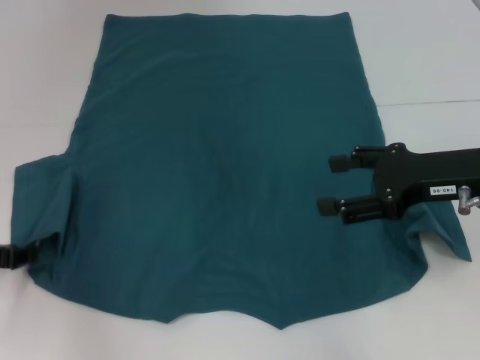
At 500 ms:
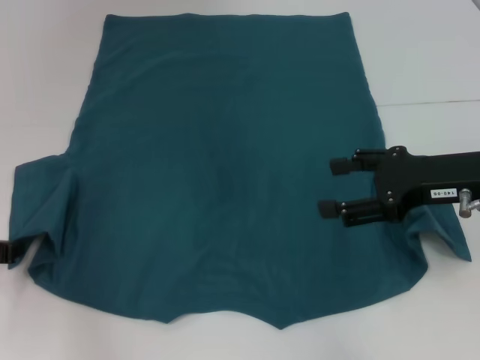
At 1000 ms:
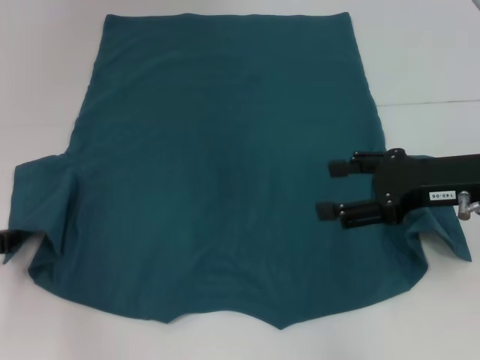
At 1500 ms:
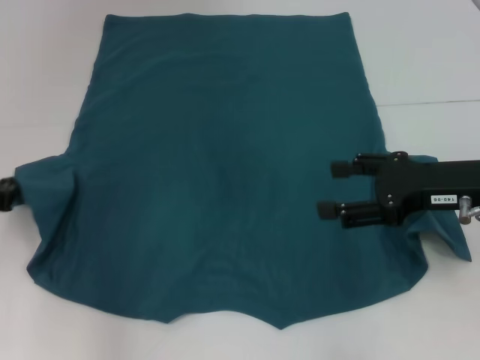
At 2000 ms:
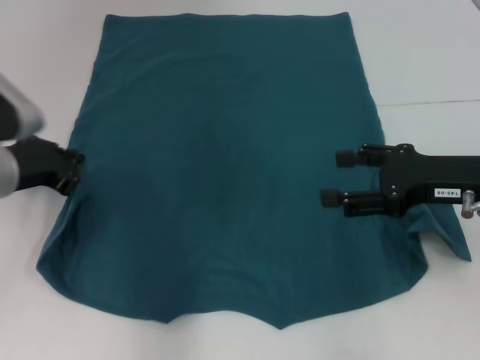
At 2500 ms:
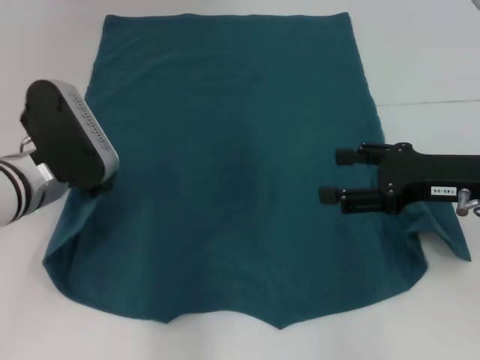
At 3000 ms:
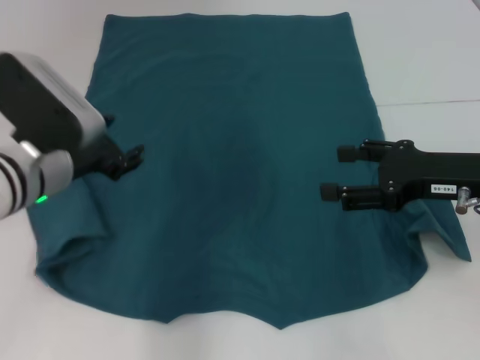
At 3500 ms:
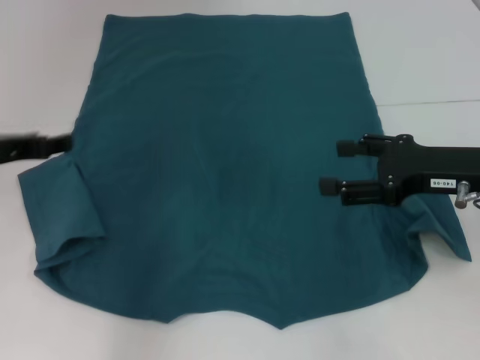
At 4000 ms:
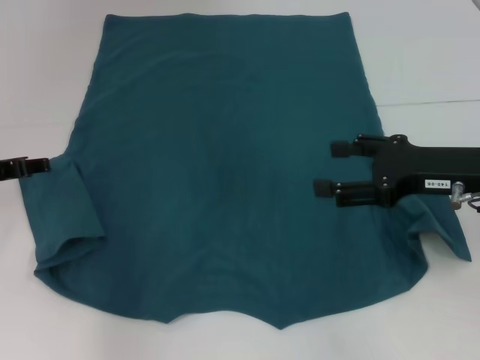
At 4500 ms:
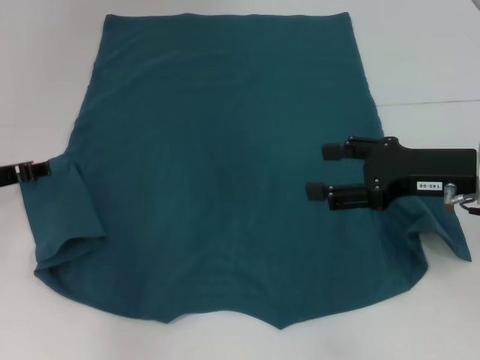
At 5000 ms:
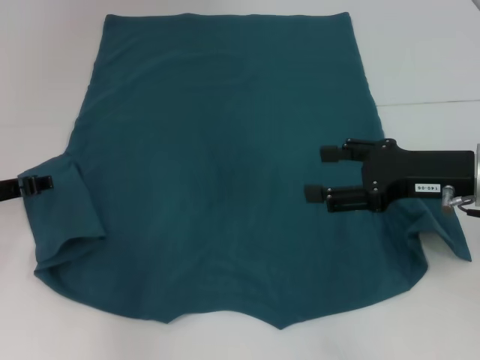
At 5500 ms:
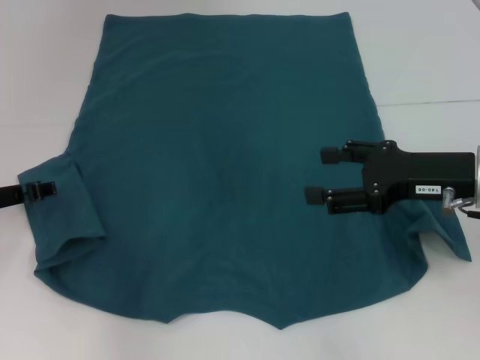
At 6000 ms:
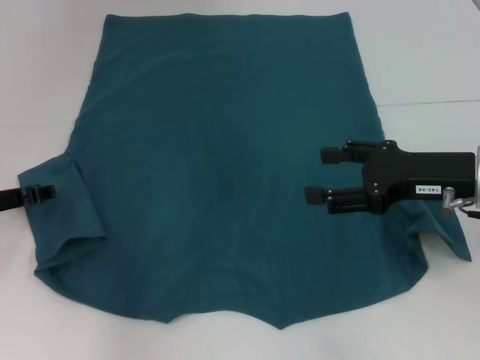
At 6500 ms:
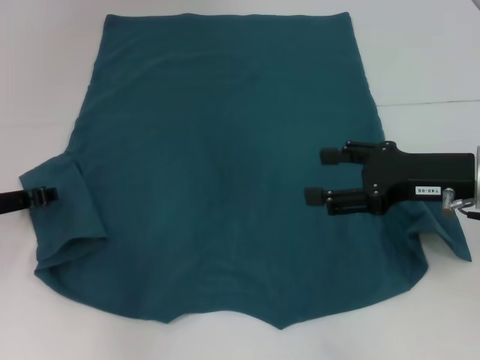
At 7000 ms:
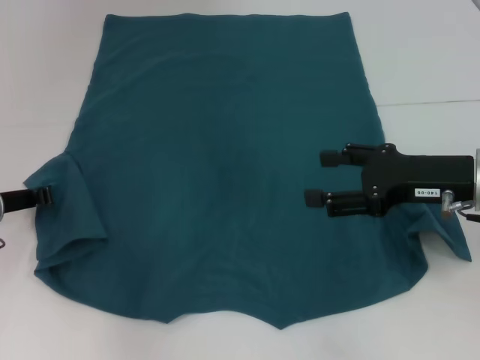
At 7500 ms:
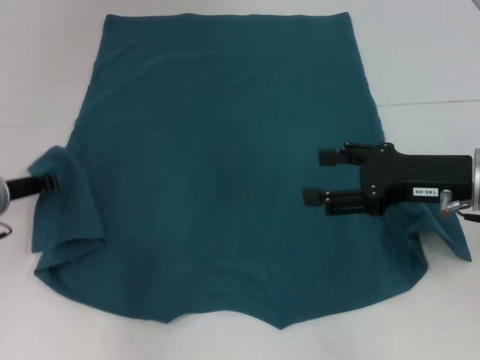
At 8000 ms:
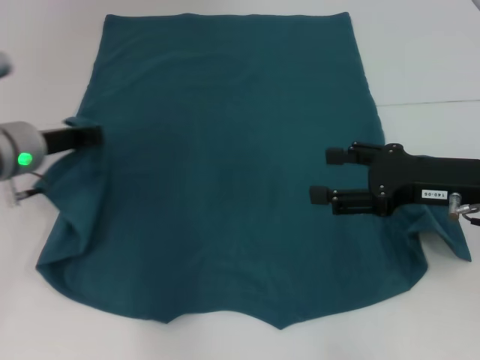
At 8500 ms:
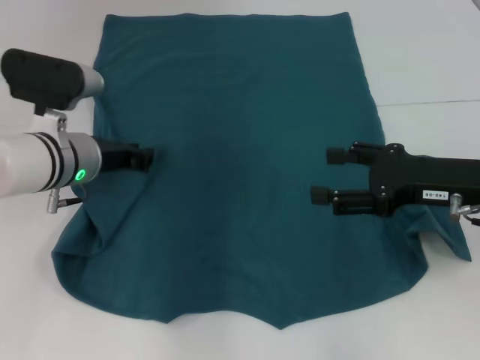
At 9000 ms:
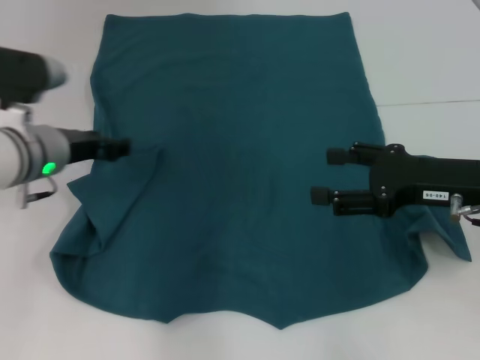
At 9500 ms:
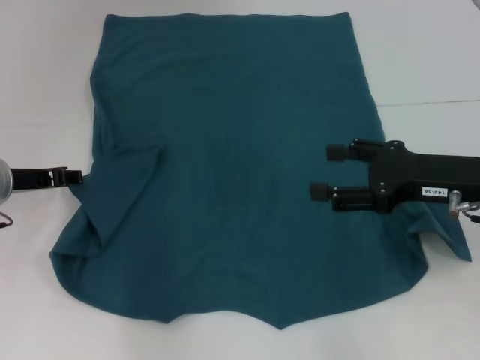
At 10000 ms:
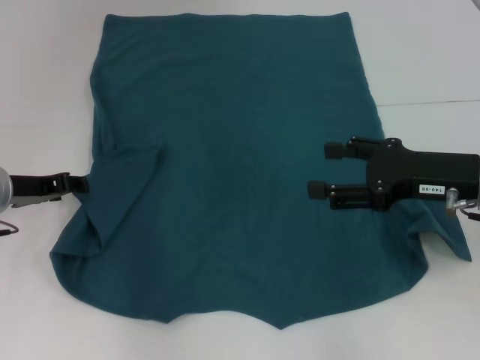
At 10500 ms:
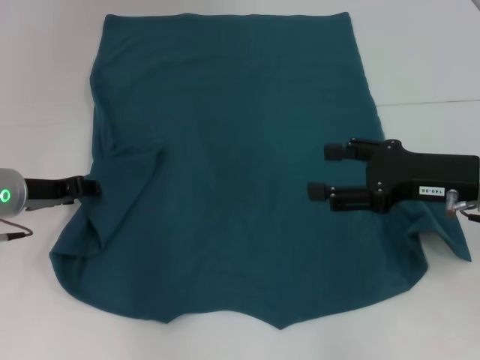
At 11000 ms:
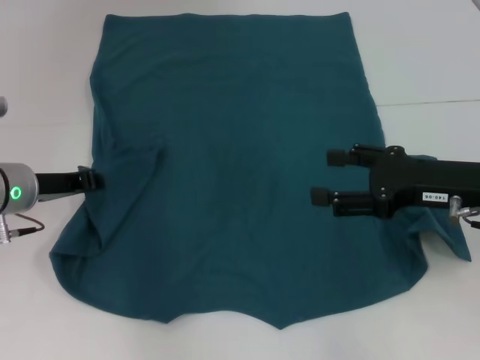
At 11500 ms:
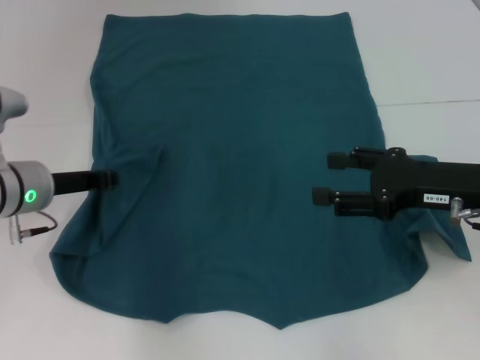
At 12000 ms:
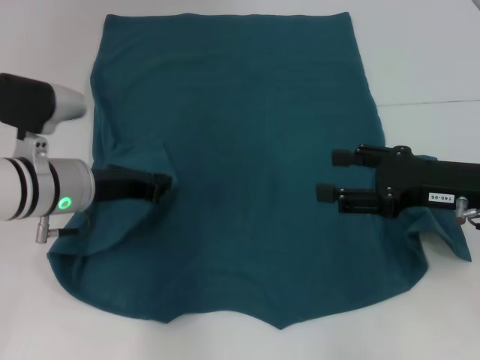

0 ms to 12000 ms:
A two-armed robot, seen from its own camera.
Step, 0 ms to 12000 ms: Fold the bottom left sleeve with your left hand.
0 ms to 2000 ms: The left gripper travels to the right and upward by roughly 10 cm, and closes up.
2000 ms to 4000 ms: The left gripper travels to the left by about 5 cm, and opens.
4000 ms to 6000 ms: The grippers make only small movements.
6000 ms to 8000 ms: The left gripper moves to the right and upward, approximately 10 cm, and closes up.
8000 ms to 10000 ms: The left gripper opens.
10000 ms to 12000 ms: The left gripper shifts some 10 cm to the right, and closes up.

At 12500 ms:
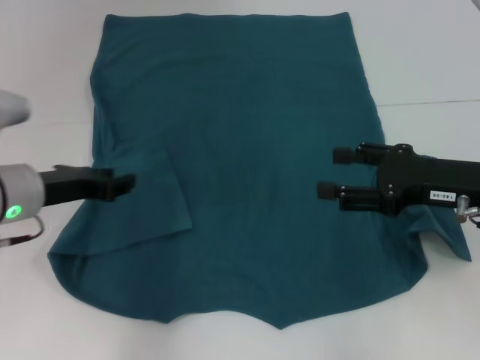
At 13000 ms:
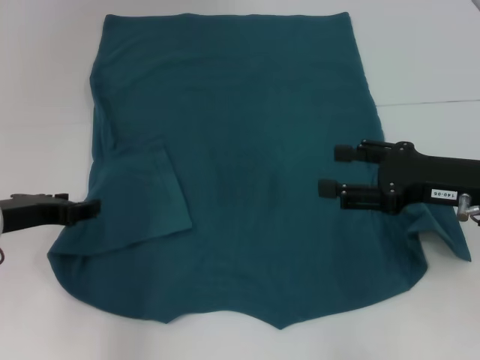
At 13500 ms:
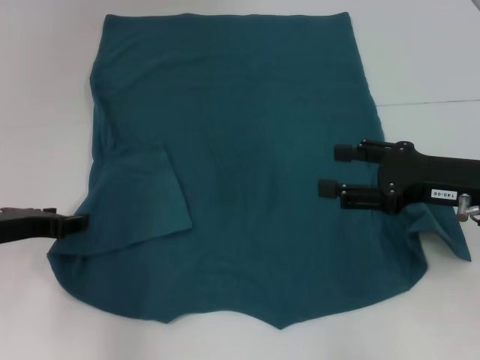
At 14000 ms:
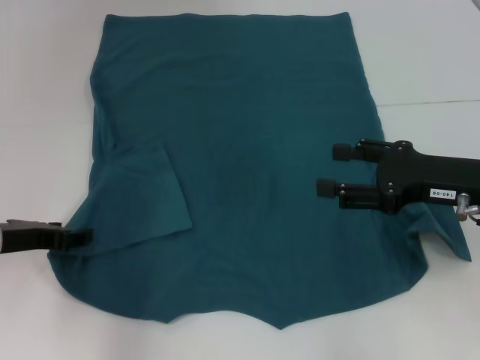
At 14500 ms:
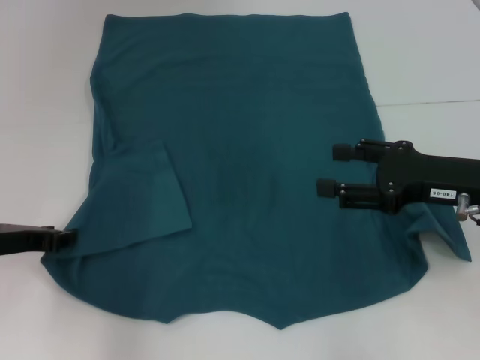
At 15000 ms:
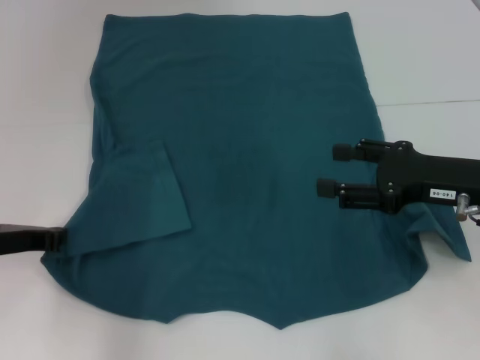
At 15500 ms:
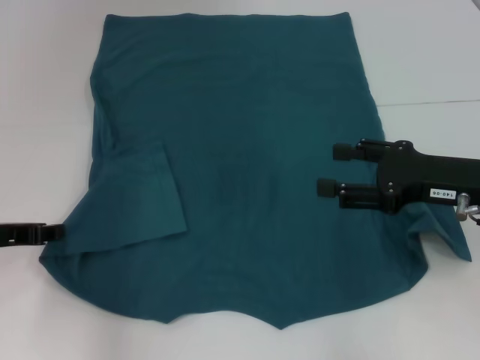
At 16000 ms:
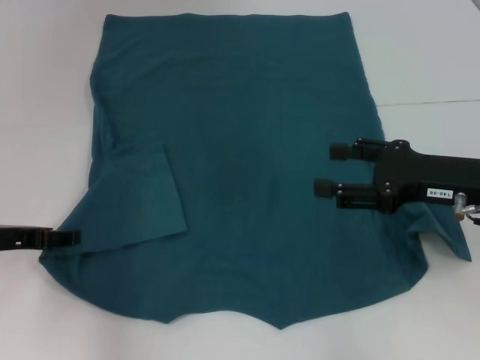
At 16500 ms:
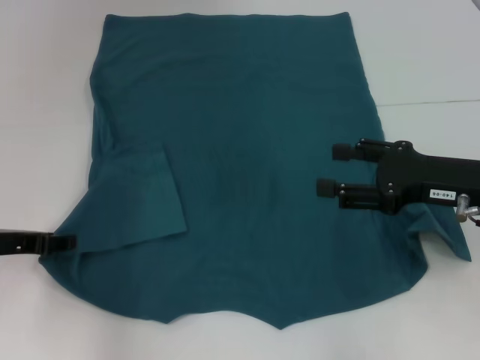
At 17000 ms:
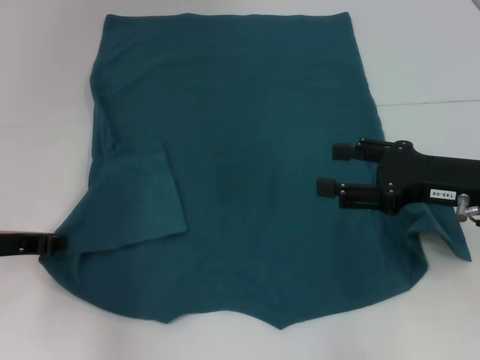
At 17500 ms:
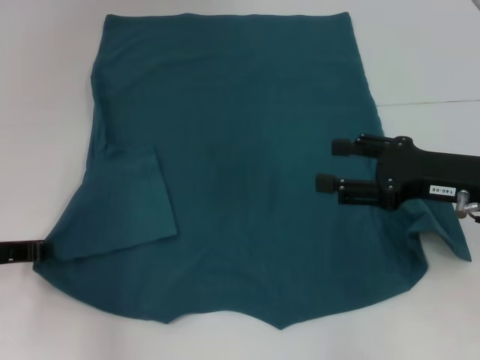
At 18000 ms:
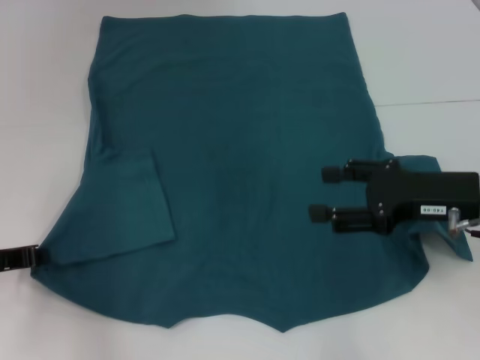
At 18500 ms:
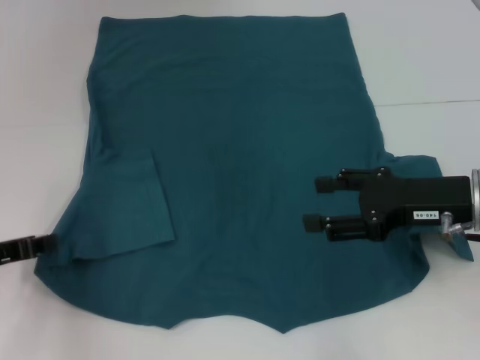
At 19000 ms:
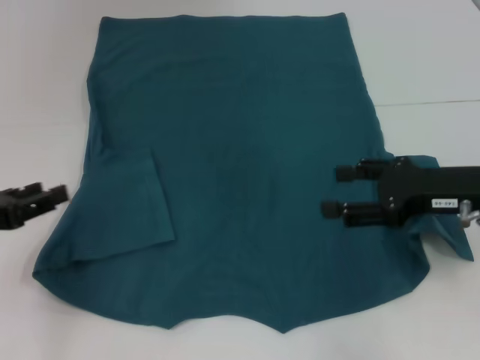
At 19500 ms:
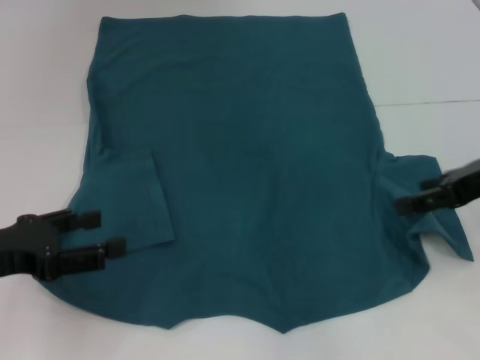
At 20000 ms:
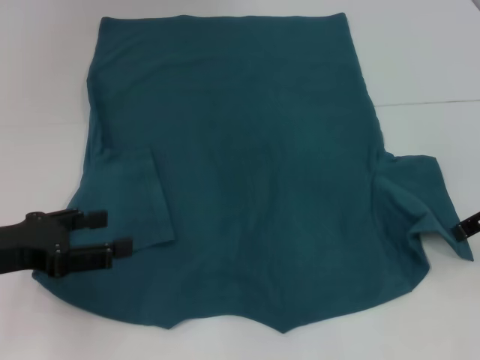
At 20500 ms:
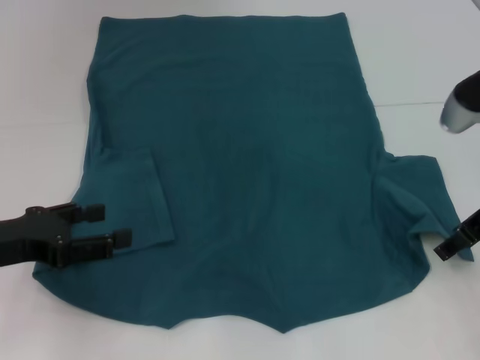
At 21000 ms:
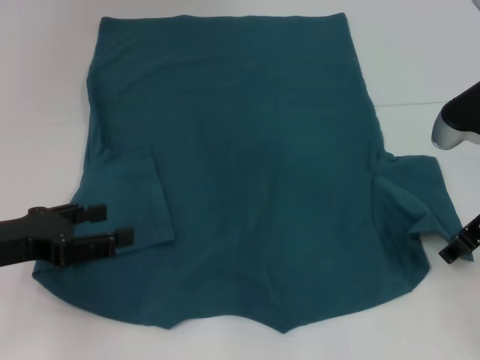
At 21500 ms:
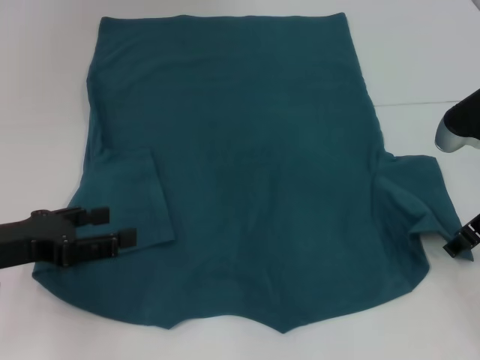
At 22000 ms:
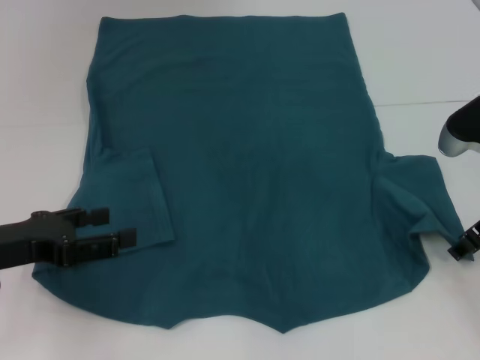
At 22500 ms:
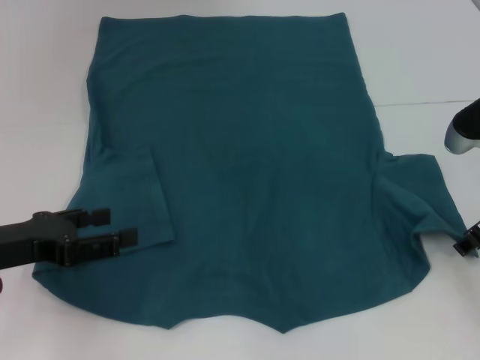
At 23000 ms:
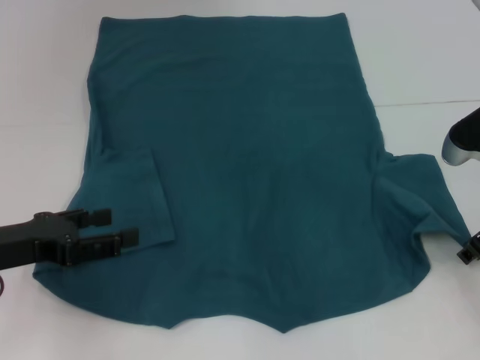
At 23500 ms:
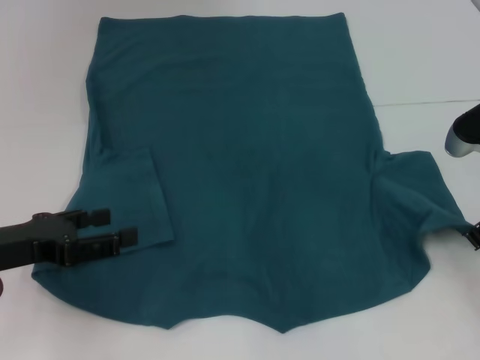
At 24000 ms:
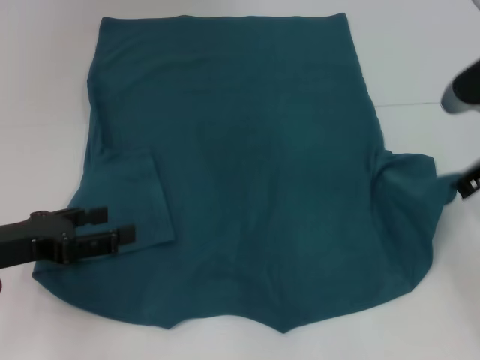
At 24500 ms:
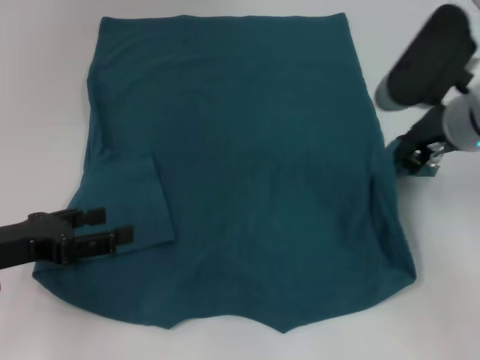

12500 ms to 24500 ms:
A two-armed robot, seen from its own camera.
12500 ms to 14500 ms: The left gripper shifts by roughly 5 cm.
14500 ms to 16500 ms: The left gripper closes and opens again.
16500 ms to 18500 ms: The left gripper closes.
18500 ms to 20500 ms: The left gripper shifts by about 5 cm, and opens.
20500 ms to 22500 ms: The right gripper shifts by some 5 cm.
22500 ms to 24500 ms: The right gripper goes approximately 10 cm to the left and upward, and closes.

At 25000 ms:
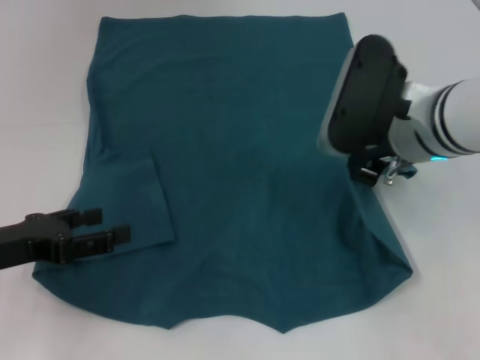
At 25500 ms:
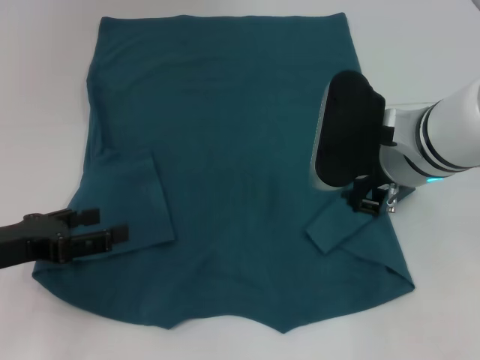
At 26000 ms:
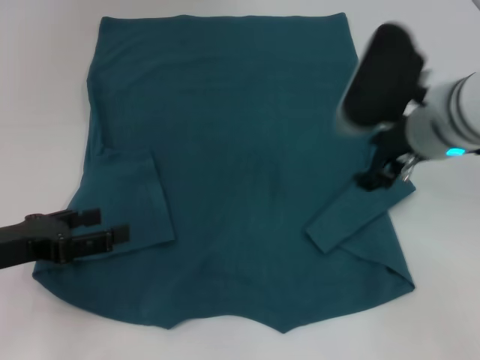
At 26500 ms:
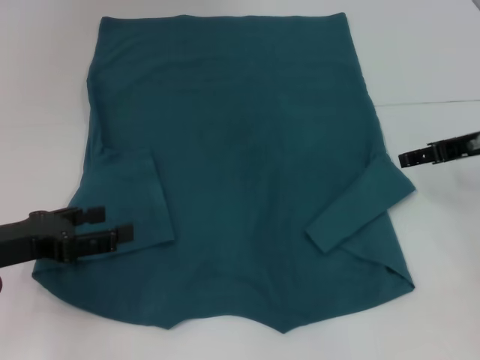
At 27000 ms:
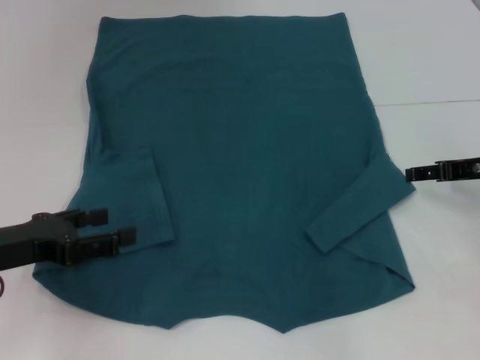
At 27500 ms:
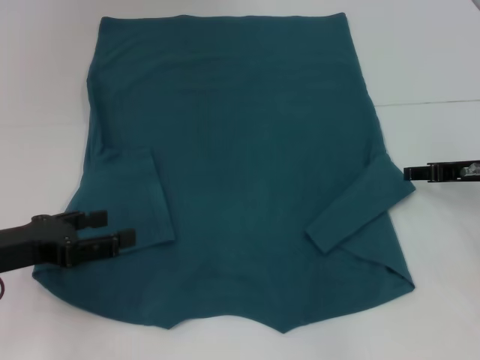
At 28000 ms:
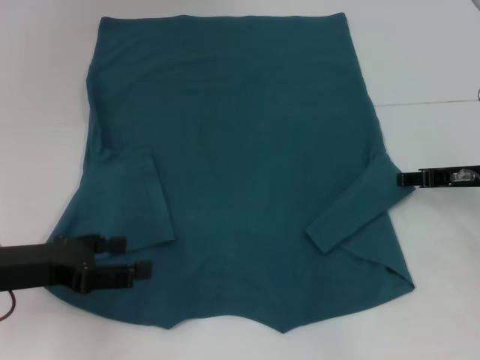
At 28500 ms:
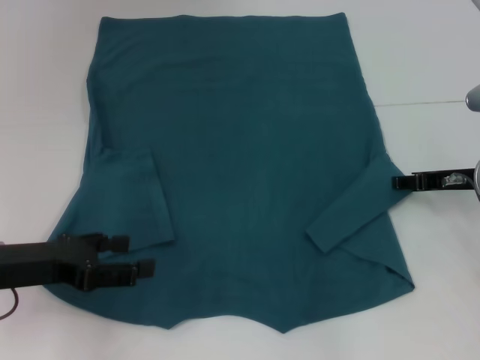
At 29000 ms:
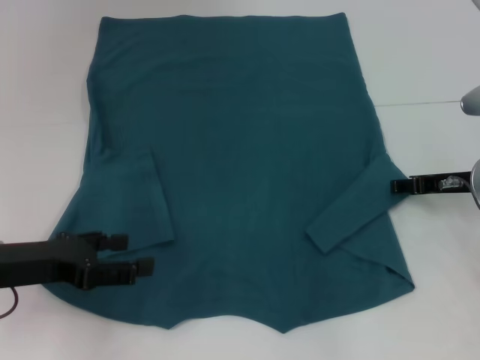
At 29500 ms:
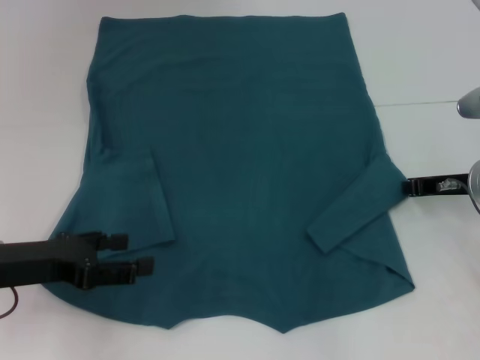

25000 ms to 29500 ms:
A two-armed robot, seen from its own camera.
25000 ms to 27000 ms: The right gripper heads to the right and downward, covering roughly 15 cm, and opens up.
27000 ms to 29500 ms: The right gripper shifts by some 5 cm, and closes its fingers.
